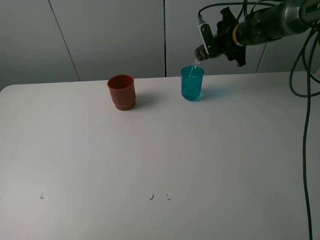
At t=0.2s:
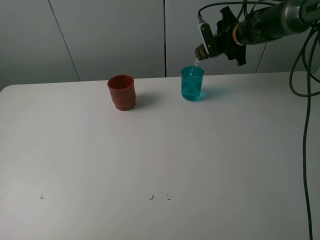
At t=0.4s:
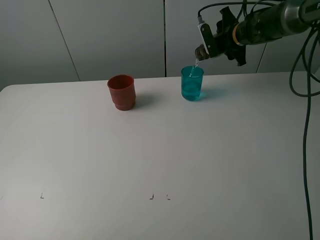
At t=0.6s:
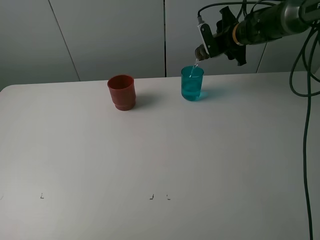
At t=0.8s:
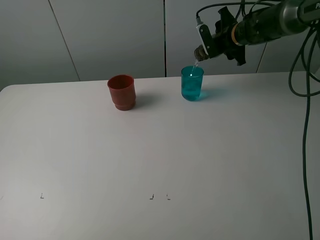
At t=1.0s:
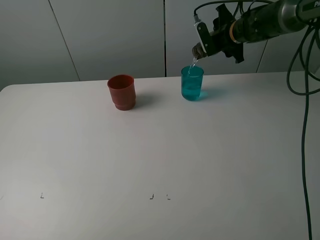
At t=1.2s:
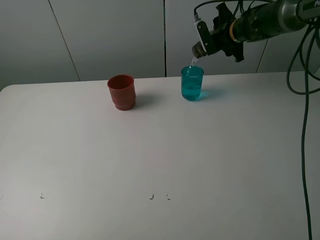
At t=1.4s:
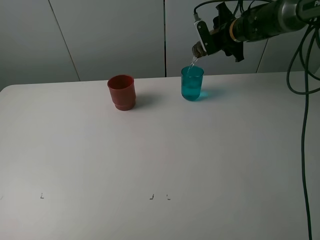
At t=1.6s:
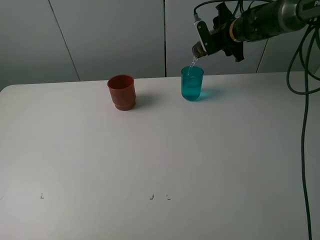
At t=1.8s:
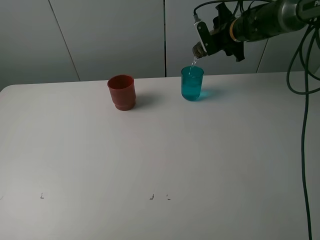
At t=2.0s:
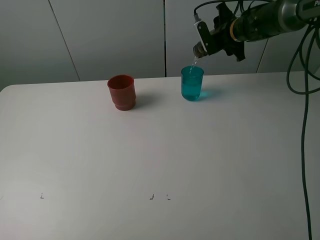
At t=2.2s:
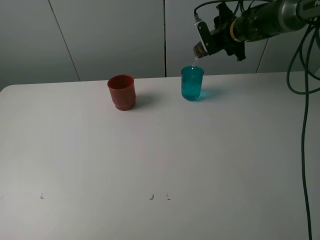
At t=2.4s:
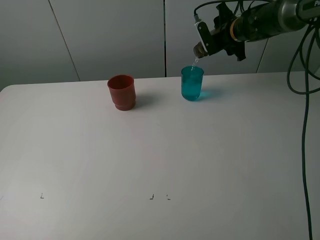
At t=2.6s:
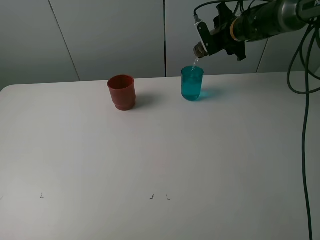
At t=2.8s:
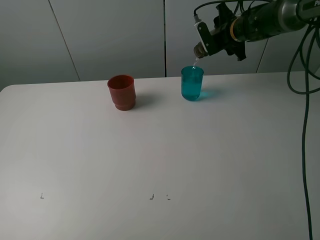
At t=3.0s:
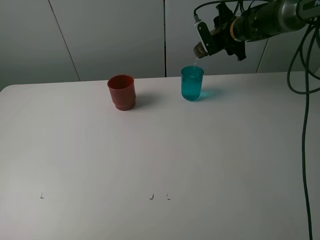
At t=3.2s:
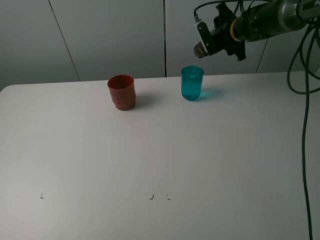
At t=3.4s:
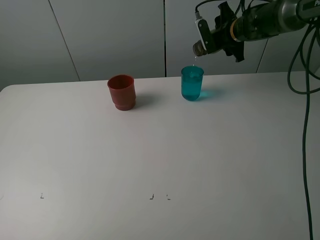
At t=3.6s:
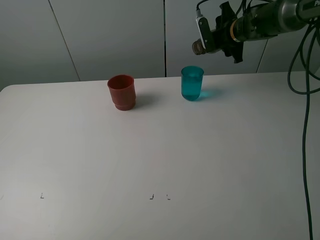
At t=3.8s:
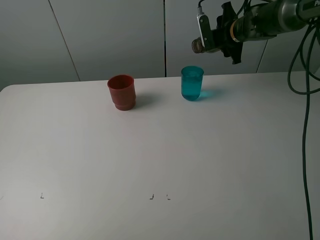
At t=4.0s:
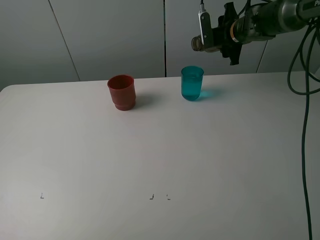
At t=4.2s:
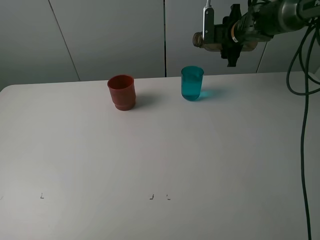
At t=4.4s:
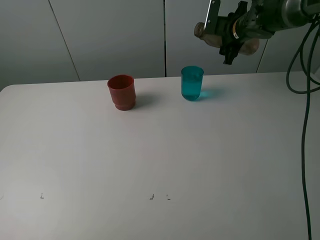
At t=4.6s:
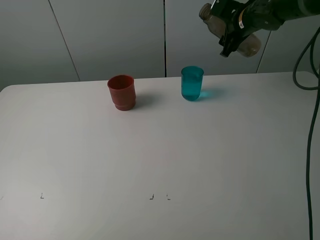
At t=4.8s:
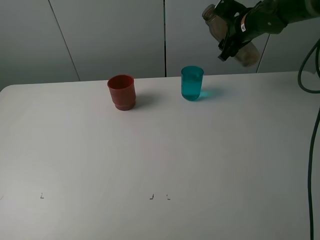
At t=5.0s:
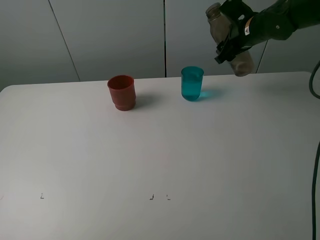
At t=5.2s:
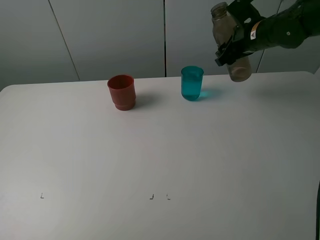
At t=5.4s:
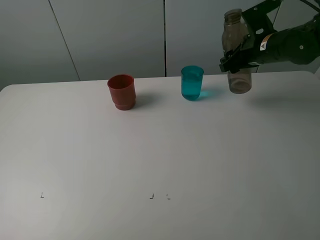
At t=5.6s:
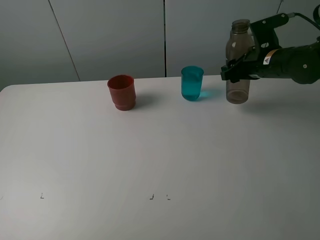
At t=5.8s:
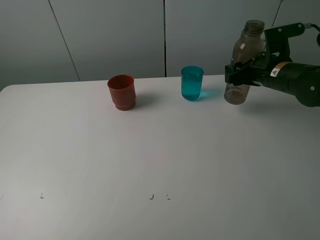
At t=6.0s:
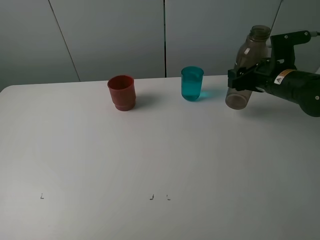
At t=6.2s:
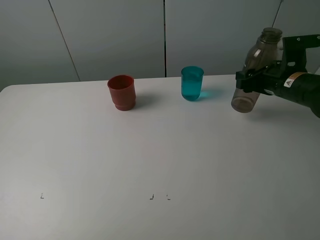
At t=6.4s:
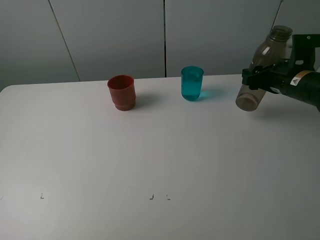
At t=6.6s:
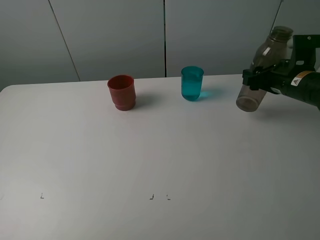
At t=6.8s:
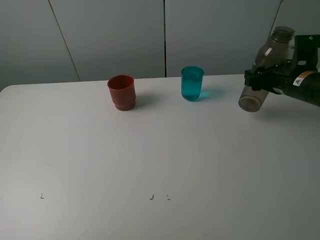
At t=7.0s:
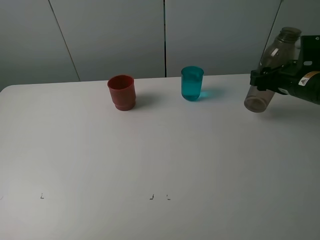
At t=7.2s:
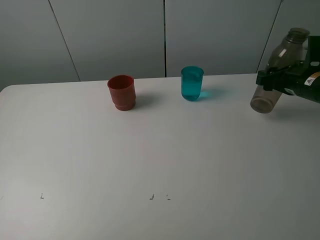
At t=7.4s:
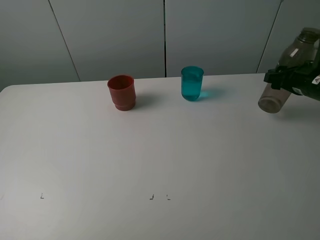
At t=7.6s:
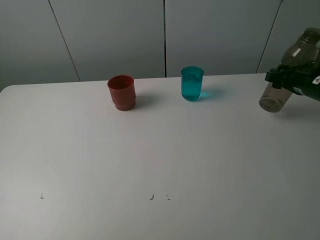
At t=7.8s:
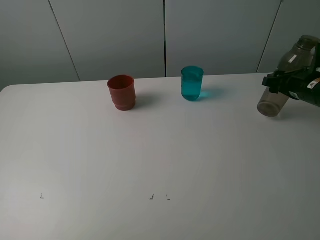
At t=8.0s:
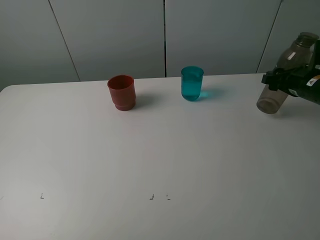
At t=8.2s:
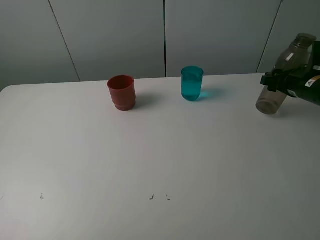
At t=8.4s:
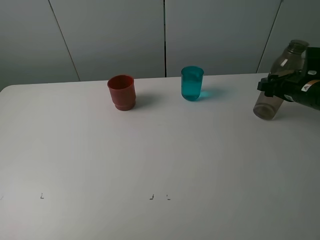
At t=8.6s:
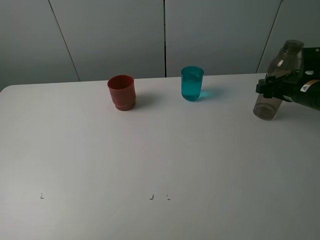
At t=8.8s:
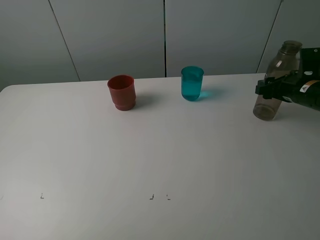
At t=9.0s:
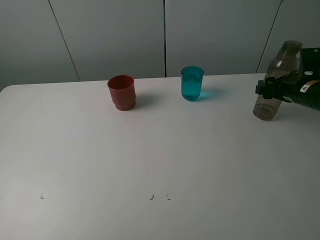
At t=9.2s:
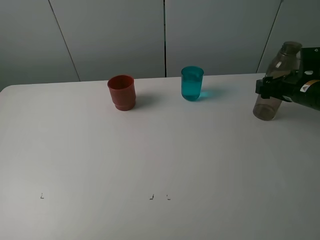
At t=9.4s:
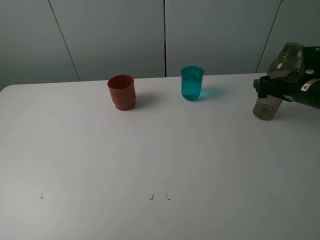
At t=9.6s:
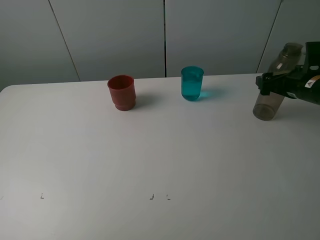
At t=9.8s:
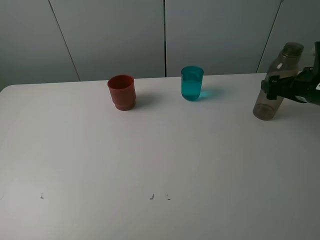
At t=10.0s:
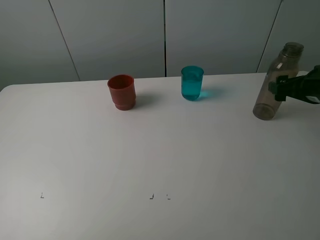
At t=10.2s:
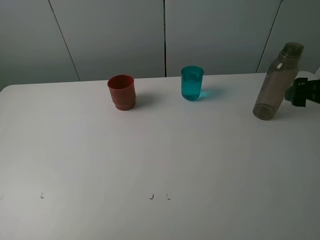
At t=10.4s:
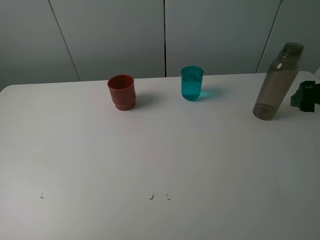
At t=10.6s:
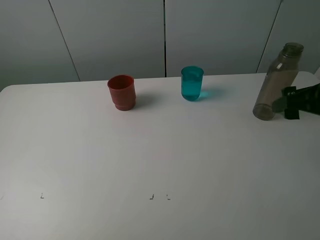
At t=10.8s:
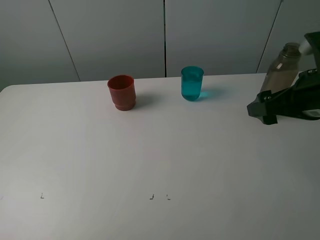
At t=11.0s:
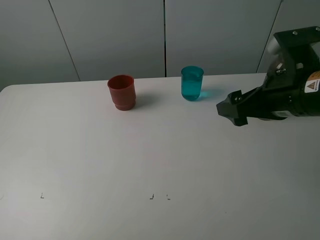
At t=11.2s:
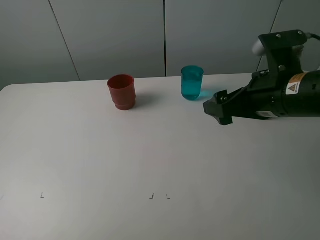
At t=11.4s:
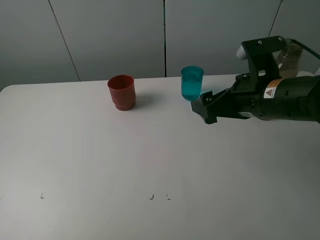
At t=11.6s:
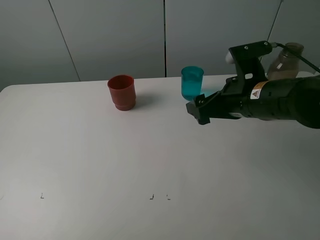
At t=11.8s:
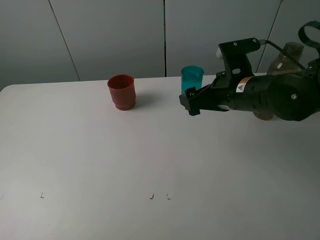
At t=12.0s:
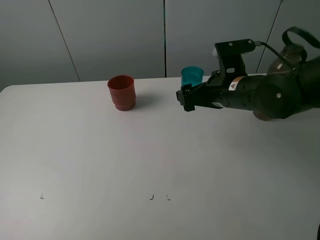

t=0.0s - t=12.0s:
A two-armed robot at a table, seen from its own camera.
Task of the whole recording: pick up the bottle and pour water into the cup, then pick up the cup containing water and pour it into another cup.
Step, t=0.0s - t=3.8s: Pour water from brown bottle to blue cup with the right gripper.
Step, t=4.0s - t=9.4s: Place the brown bottle with the right gripper.
t=0.0s - t=1.6s: The two grippers keep their place.
t=1.6s - t=3.0s: Both grippers stay put.
t=4.4s - t=6.0s: The right gripper moves backward, roughly 15 cm.
t=6.0s - t=7.6s: The right gripper is displaced to the right by about 5 cm.
t=7.6s - t=9.0s: The grippers move only a little.
t=9.0s - t=10.4s: The right gripper travels backward and upward by roughly 15 cm, and opens its fingers.
t=10.4s - t=12.0s: The right gripper goes some 15 cm to the left.

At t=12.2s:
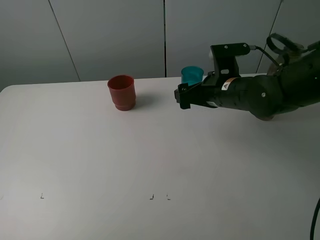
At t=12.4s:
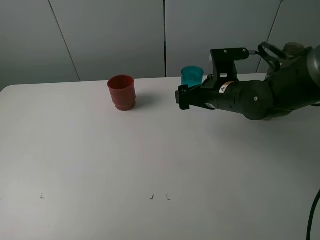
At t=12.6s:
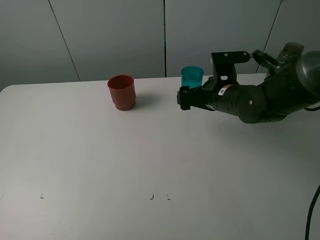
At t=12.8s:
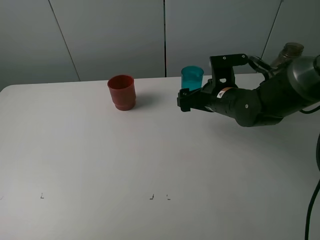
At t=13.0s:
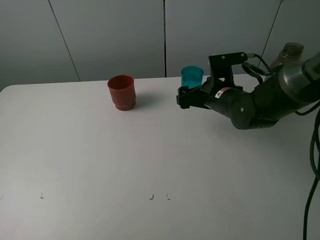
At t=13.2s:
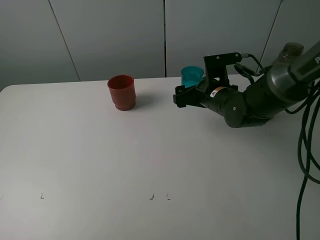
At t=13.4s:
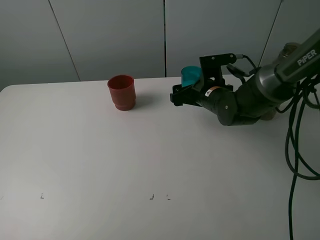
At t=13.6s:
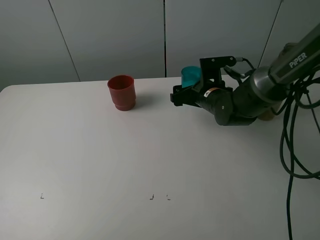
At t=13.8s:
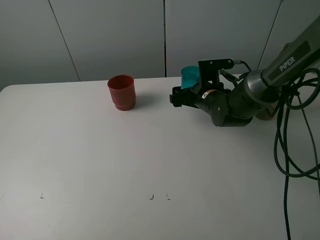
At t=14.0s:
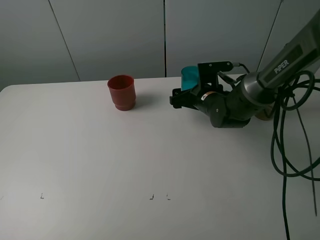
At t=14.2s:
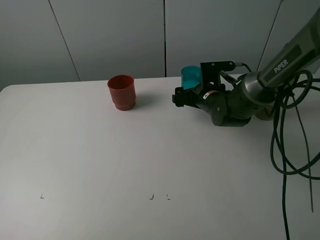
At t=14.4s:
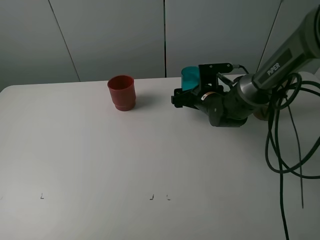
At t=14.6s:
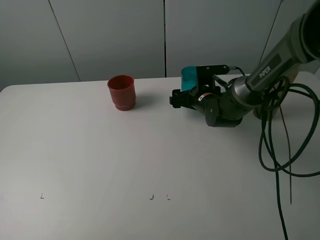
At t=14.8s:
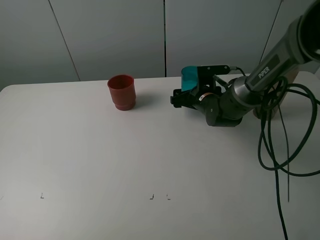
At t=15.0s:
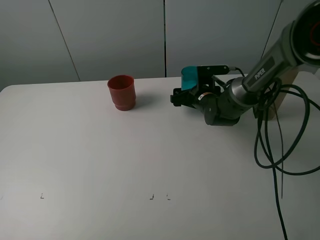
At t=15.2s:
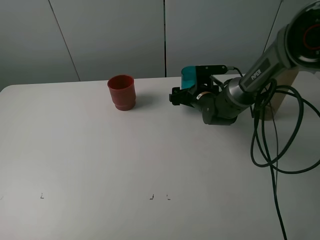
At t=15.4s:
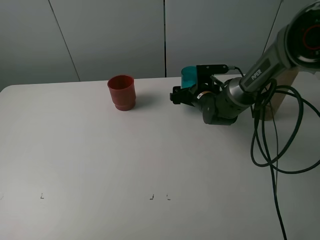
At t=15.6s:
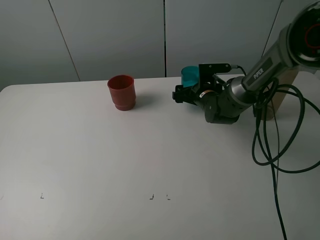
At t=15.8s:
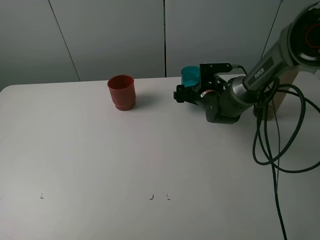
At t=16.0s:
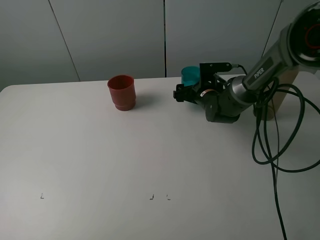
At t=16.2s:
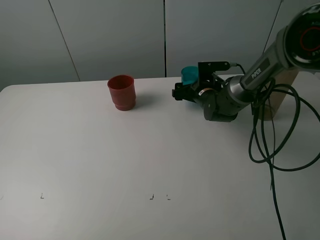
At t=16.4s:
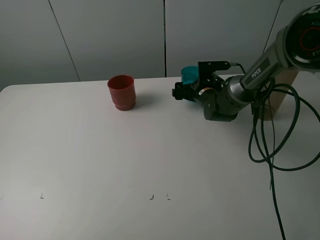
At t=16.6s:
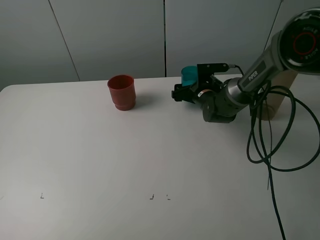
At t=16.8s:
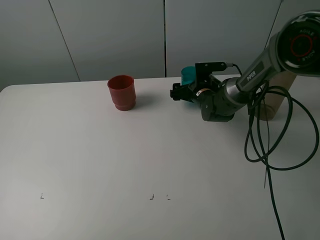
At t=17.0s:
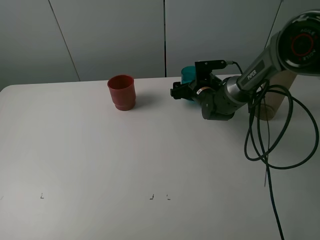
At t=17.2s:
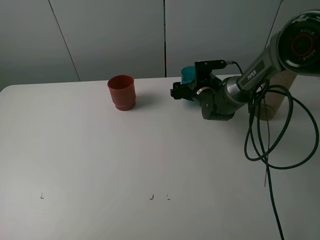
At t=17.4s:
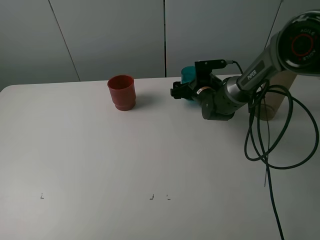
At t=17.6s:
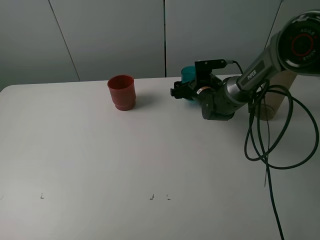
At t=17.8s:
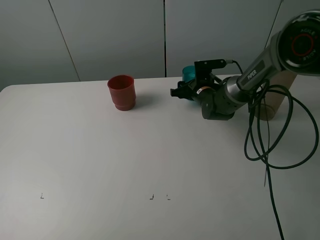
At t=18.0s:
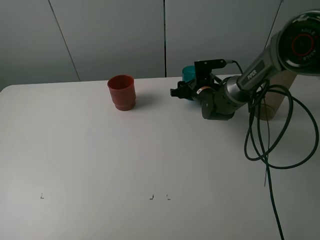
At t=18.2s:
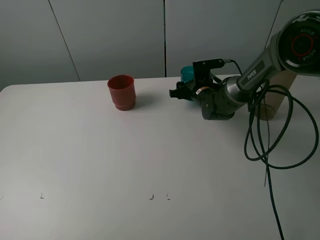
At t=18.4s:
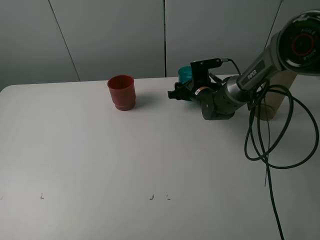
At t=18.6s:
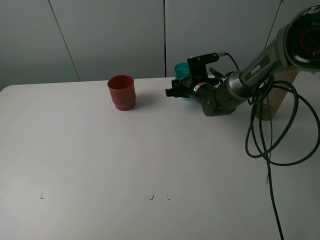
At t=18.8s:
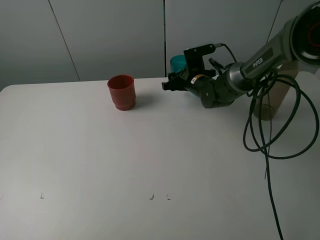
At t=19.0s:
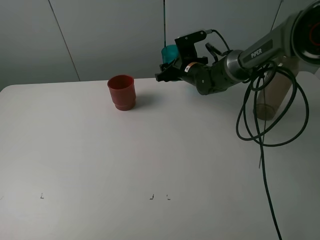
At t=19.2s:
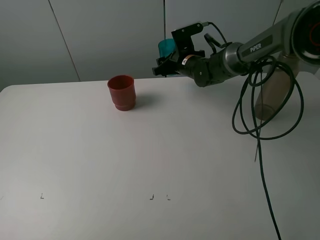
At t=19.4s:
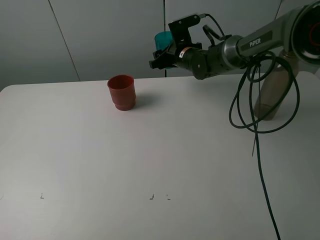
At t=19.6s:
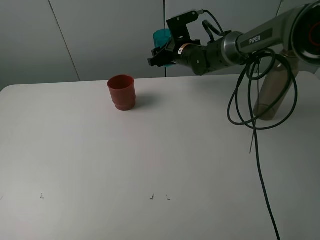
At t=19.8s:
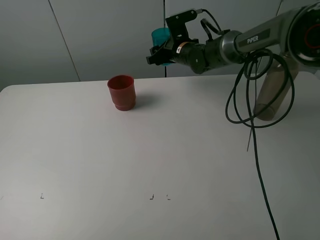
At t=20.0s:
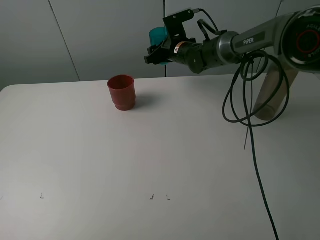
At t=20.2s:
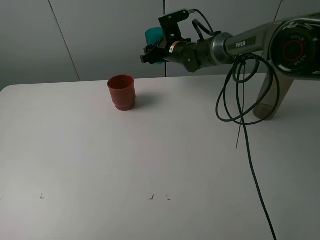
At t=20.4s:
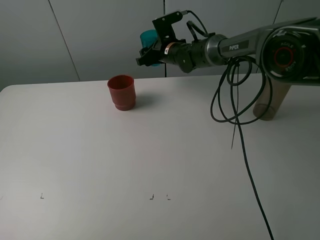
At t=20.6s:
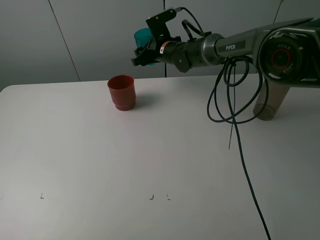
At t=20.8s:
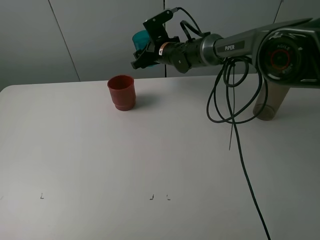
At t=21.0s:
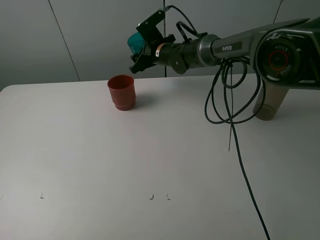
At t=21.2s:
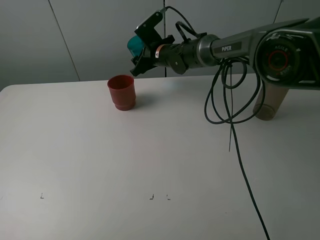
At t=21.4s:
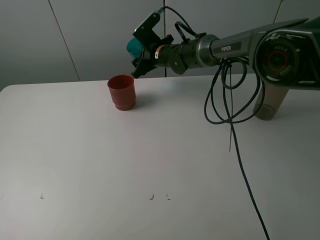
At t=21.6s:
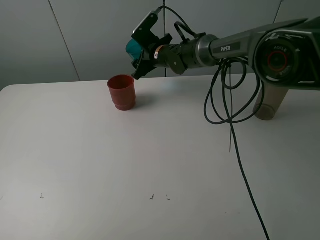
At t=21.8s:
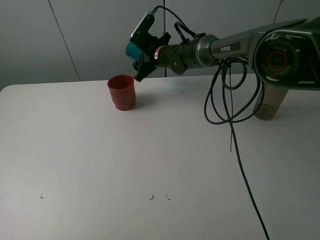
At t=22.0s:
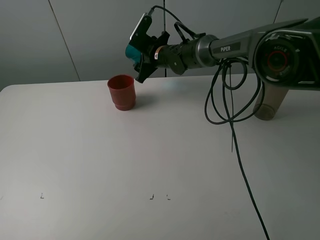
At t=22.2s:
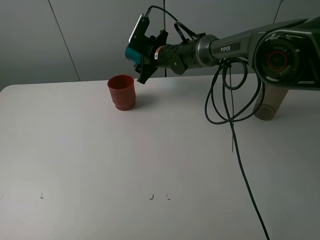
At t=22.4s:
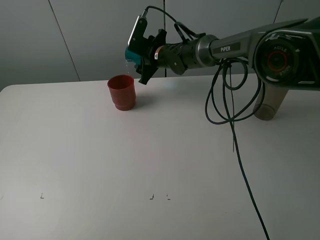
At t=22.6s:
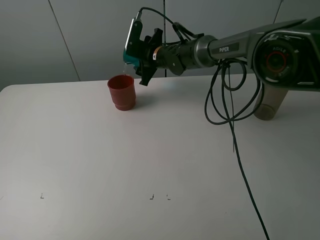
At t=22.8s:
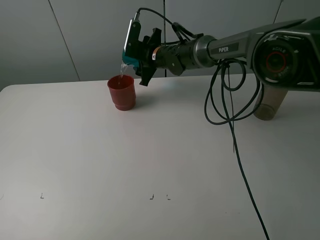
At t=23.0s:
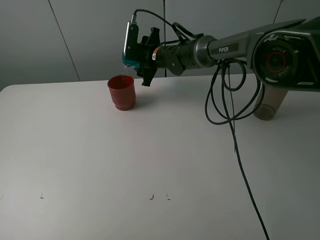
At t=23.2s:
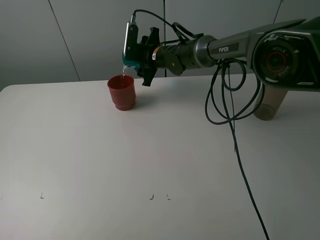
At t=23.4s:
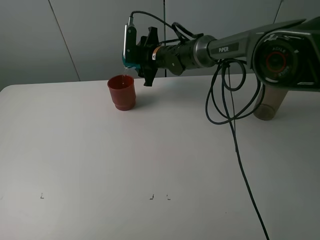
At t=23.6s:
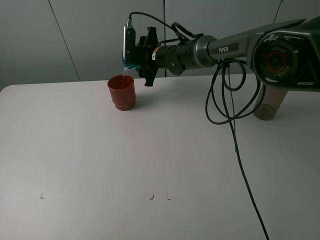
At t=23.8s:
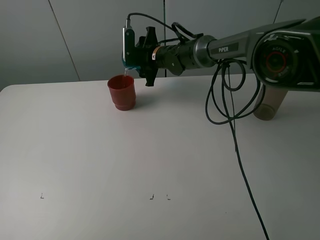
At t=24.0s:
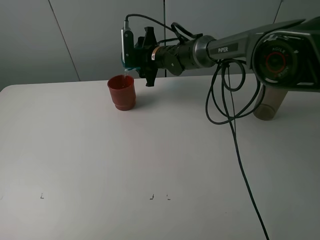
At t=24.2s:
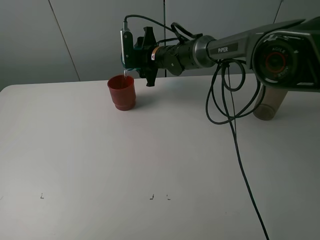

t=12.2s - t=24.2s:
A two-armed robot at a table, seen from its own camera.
Task of the whole recording: pick up the bottle and pour water into the cup, then pick up the cup containing water and pour it into another cup.
Step, t=12.2s - t=17.8s: Grasp the blue cup with the right gripper.
t=12.2s - t=13.8s: The right gripper moves downward and forward, about 10 cm.
t=13.8s - t=15.2s: The right gripper shifts by roughly 5 cm.
t=15.2s - t=16.6s: The grippers make only small movements.
t=16.6s - t=18.2s: The right gripper closes.
t=18.2s - t=19.8s: The right gripper goes approximately 15 cm upward, forward and to the left.
t=19.8s - t=21.2s: The right gripper heads to the left, covering some 5 cm.
